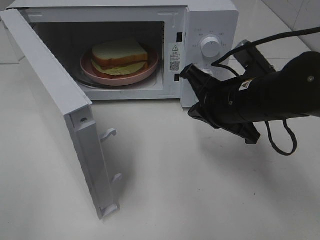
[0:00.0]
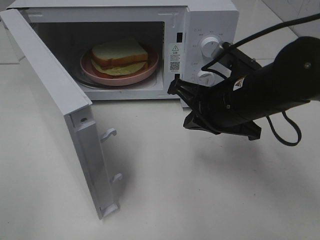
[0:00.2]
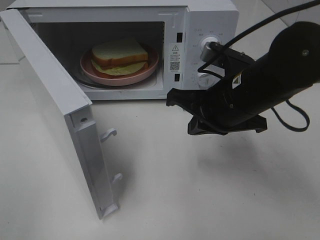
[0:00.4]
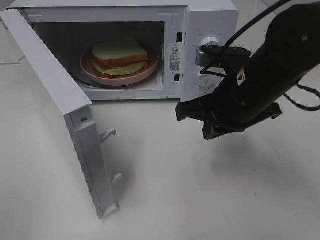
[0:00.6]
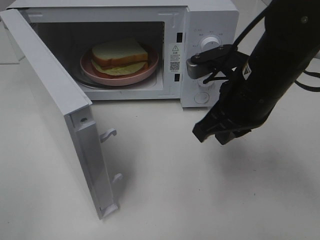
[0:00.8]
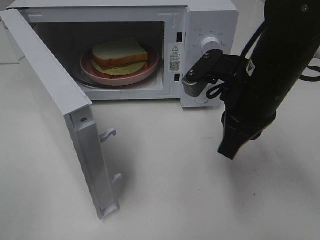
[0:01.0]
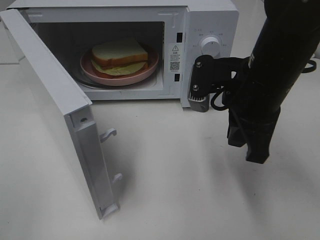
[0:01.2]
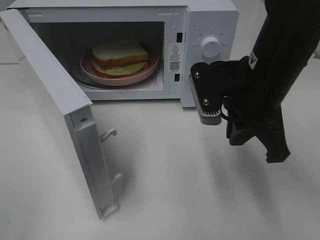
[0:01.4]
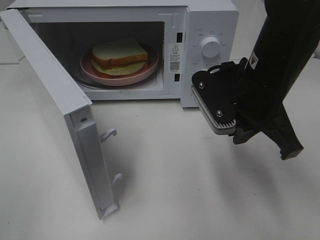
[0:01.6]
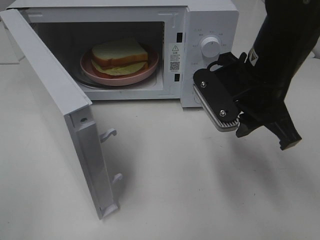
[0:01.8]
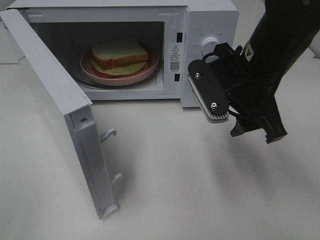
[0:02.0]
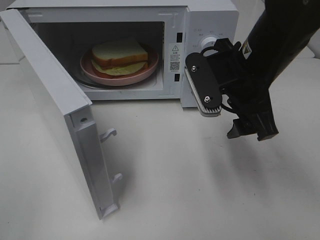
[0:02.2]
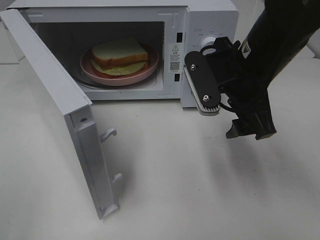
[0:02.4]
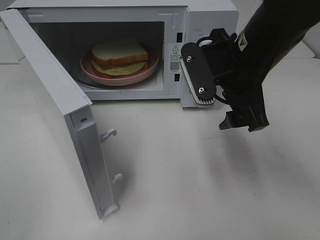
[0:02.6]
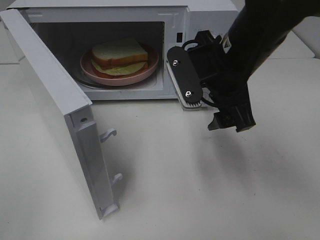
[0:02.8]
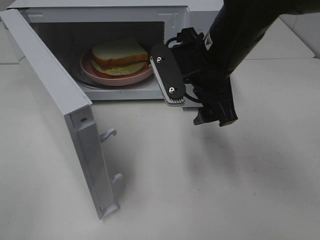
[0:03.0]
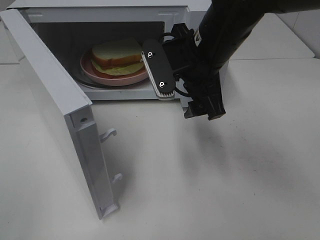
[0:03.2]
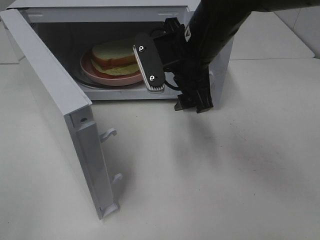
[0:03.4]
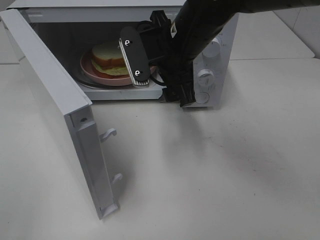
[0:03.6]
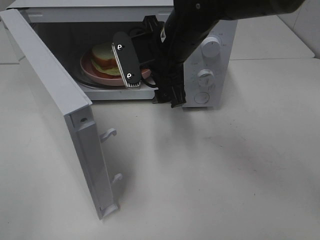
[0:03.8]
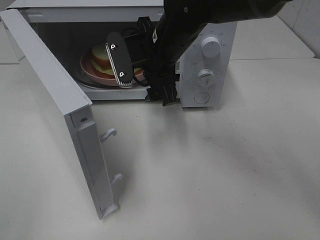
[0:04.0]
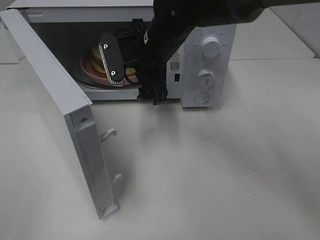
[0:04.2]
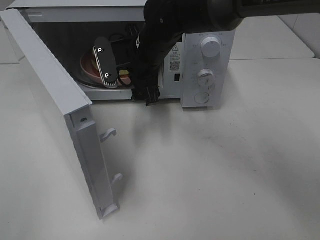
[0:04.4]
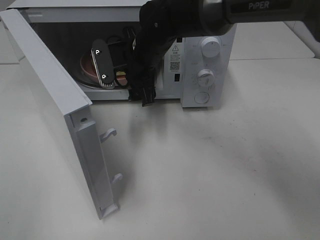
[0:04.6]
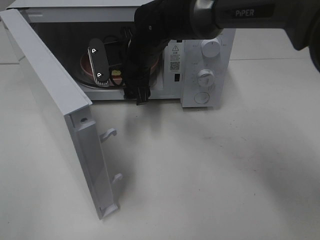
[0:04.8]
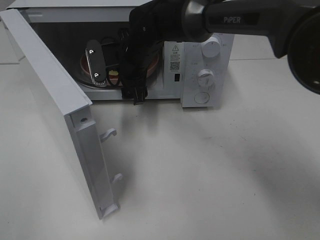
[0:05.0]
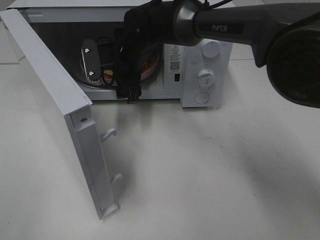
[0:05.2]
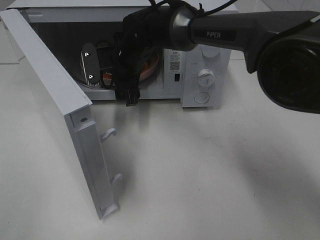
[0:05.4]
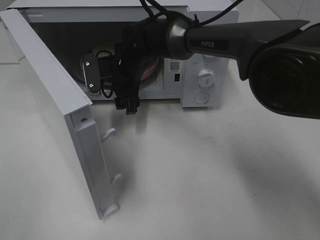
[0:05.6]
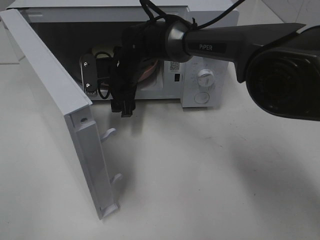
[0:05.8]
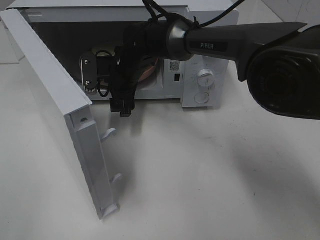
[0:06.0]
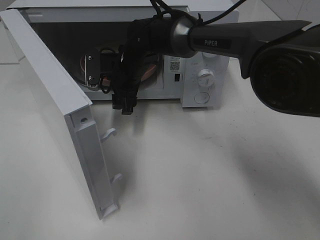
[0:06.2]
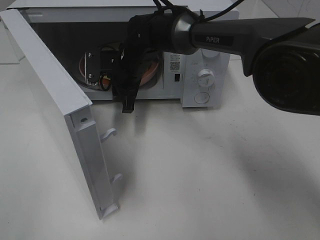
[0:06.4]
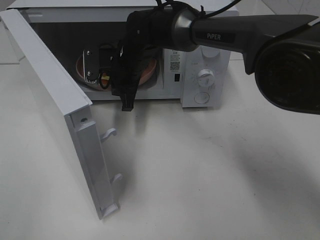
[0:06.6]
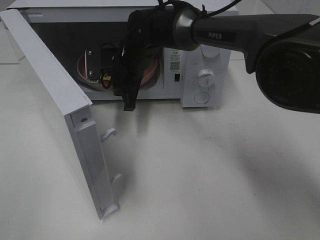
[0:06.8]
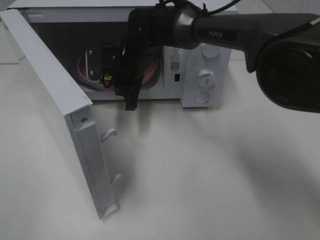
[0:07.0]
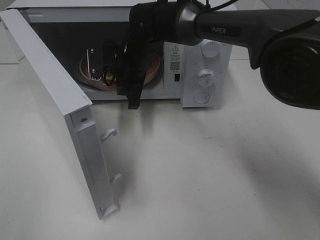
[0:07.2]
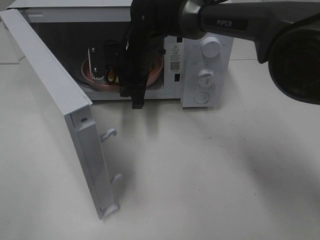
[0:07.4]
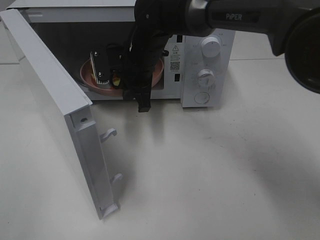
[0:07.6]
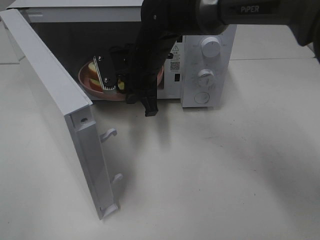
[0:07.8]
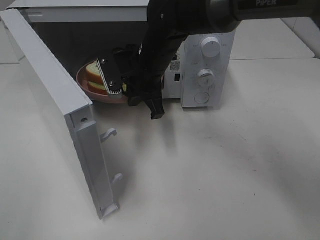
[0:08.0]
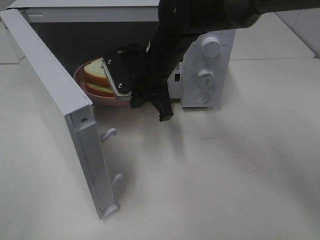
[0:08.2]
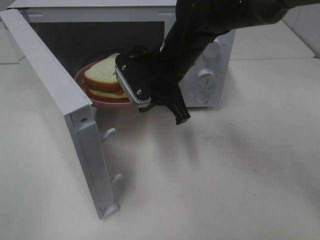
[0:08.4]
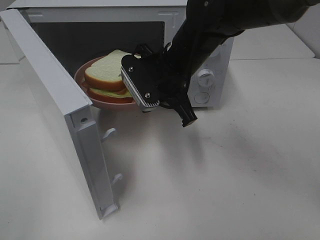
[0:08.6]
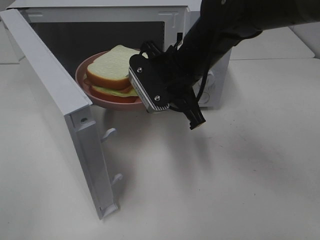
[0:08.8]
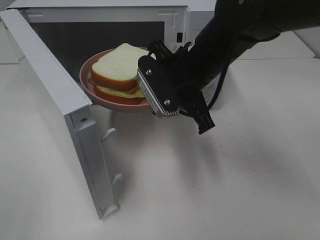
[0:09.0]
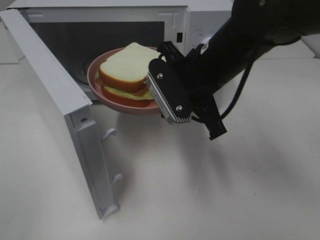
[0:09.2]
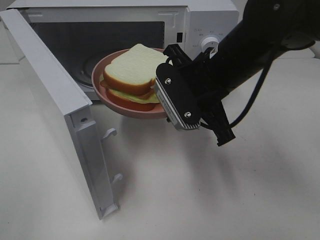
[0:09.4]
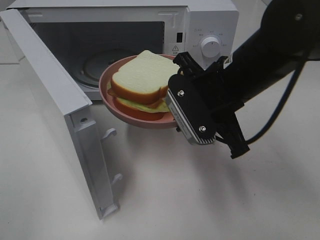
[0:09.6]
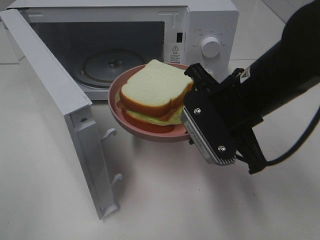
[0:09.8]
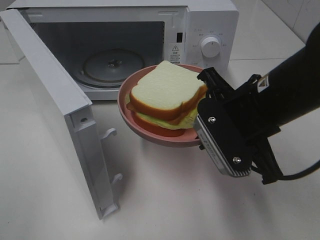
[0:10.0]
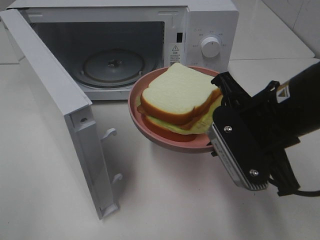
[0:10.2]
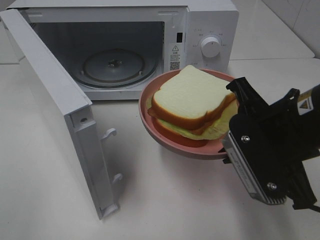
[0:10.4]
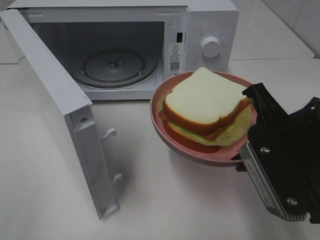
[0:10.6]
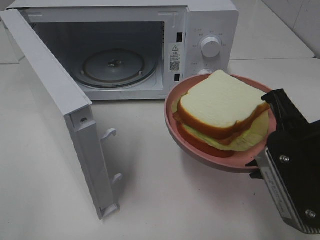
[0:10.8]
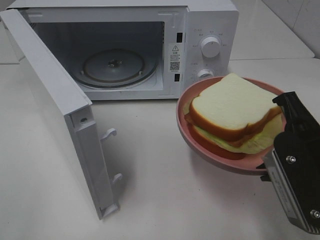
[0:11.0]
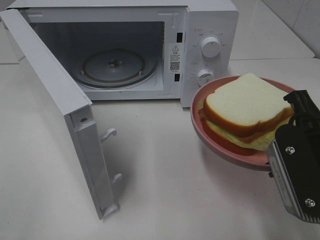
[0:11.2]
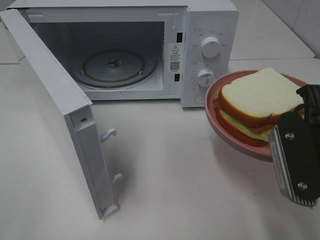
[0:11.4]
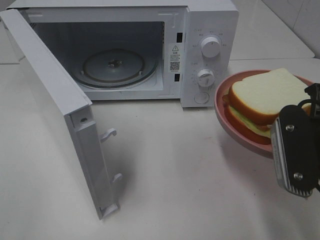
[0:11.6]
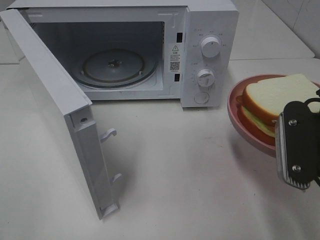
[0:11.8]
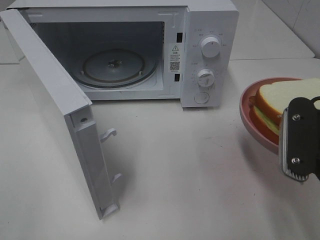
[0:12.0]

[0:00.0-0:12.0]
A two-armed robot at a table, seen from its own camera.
Task of the whole recording: Heat Sandwich.
Step, 0:00.0 to 0:06.6: Right hand: grab the plate with the sandwich.
0:01.6 to 0:03.0: The right gripper is displaced to the left by some 5 cm, and opens.
0:03.0 to 0:04.4: The right gripper is displaced forward and to the left by approximately 15 cm.
0:04.4 to 0:06.0: The right gripper heads downward, covering some 5 cm.
0:06.0 to 0:07.6: The right gripper shifts by approximately 5 cm, and closes up.
0:07.6 to 0:09.0: The right gripper heads backward, to the right and upward, covering some 15 cm.
0:09.0 to 0:10.4: The right gripper is displaced backward and to the right by about 15 cm.
0:10.4 to 0:12.0: The right gripper is displaced to the right by roughly 5 cm.

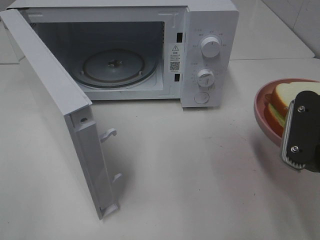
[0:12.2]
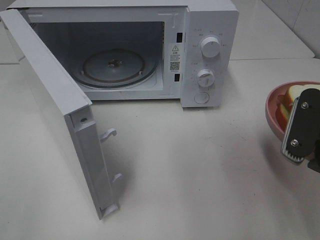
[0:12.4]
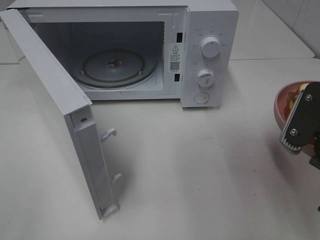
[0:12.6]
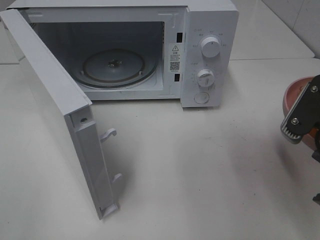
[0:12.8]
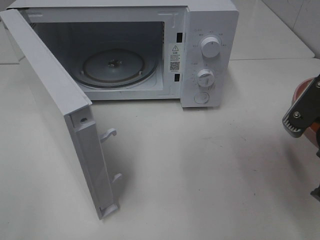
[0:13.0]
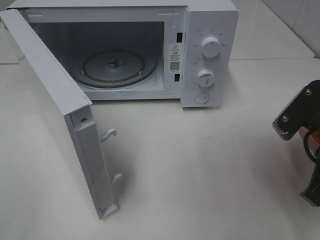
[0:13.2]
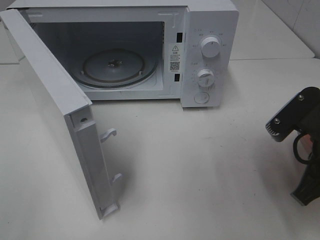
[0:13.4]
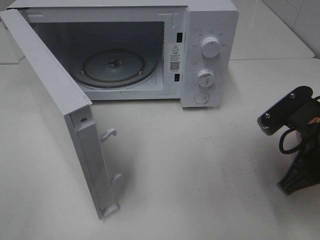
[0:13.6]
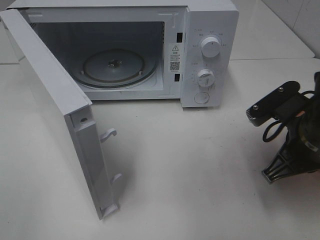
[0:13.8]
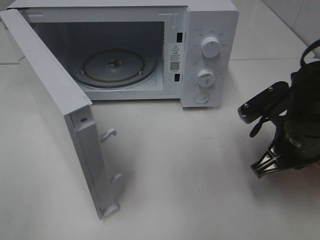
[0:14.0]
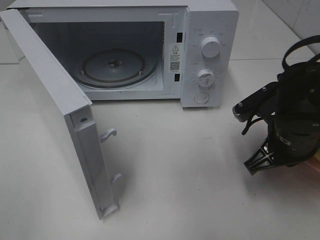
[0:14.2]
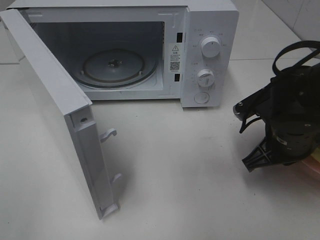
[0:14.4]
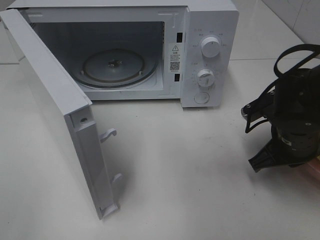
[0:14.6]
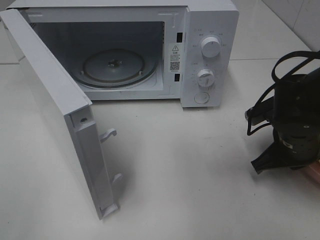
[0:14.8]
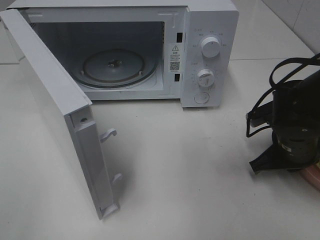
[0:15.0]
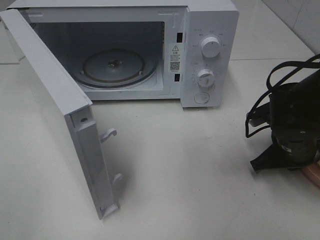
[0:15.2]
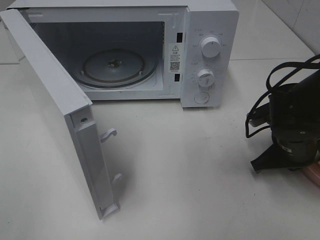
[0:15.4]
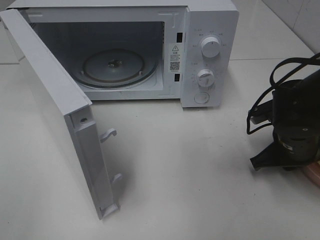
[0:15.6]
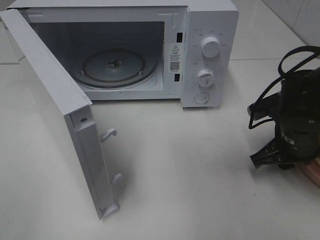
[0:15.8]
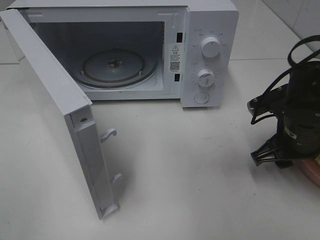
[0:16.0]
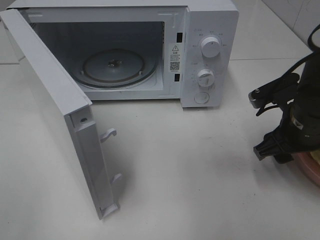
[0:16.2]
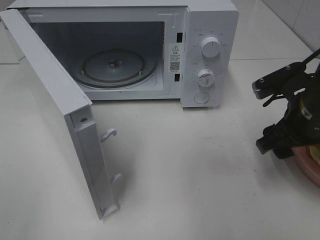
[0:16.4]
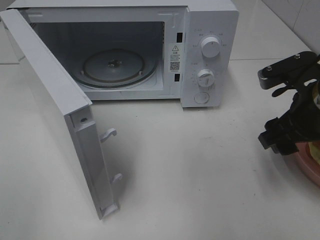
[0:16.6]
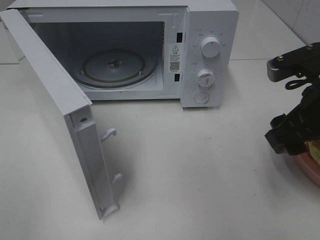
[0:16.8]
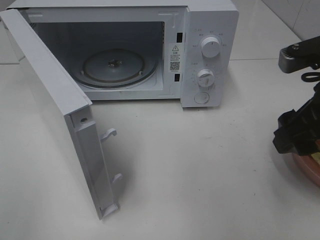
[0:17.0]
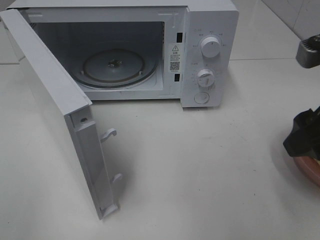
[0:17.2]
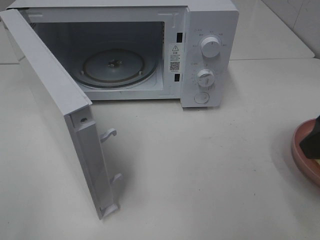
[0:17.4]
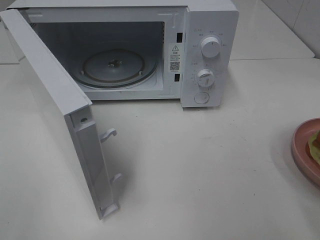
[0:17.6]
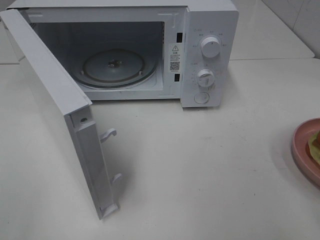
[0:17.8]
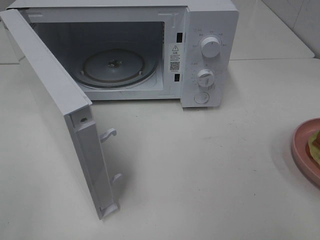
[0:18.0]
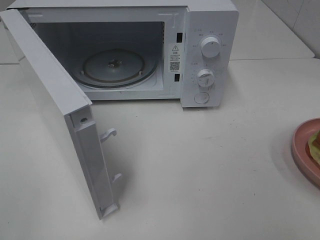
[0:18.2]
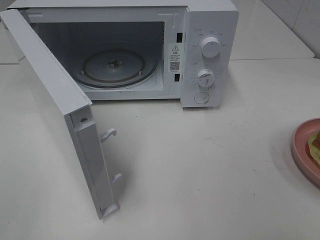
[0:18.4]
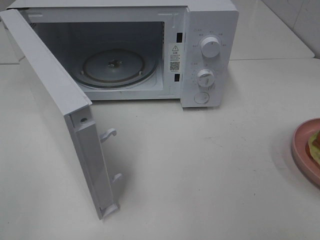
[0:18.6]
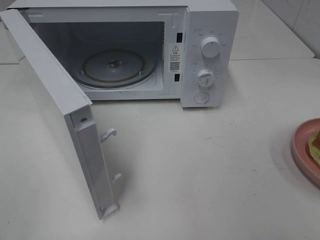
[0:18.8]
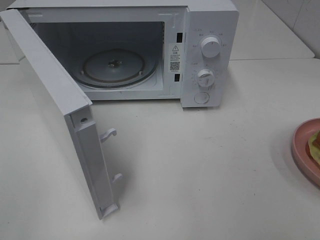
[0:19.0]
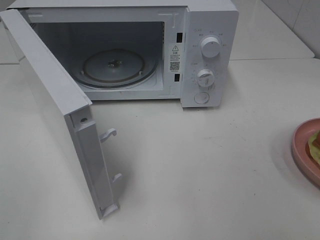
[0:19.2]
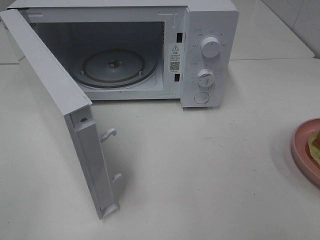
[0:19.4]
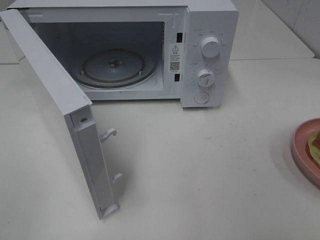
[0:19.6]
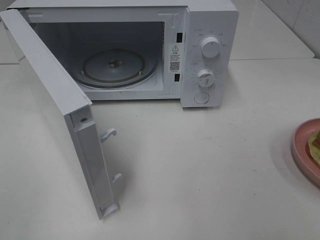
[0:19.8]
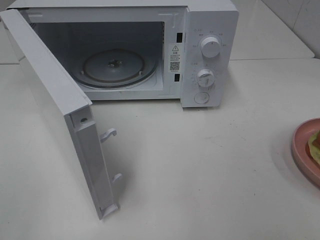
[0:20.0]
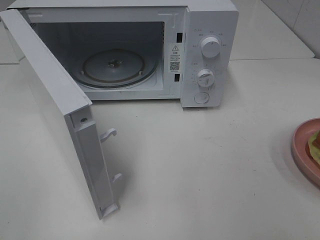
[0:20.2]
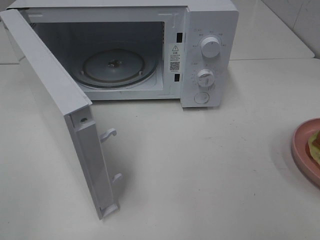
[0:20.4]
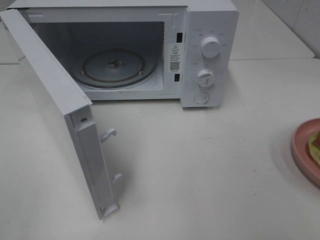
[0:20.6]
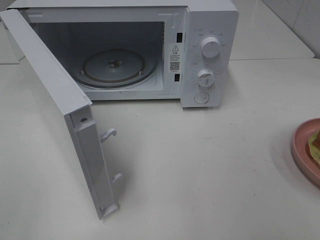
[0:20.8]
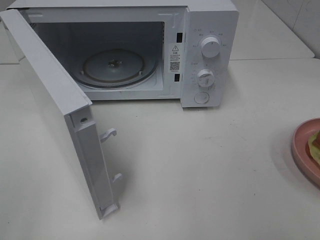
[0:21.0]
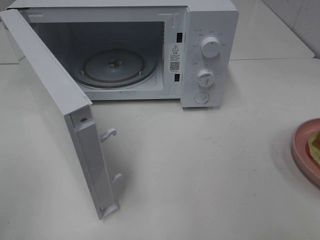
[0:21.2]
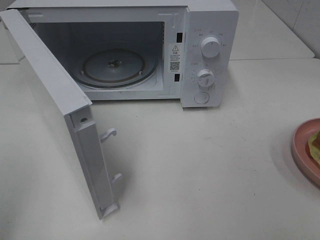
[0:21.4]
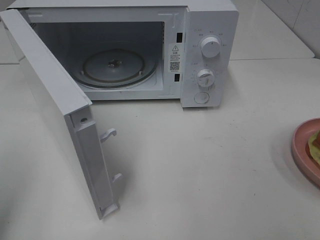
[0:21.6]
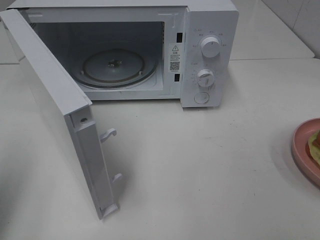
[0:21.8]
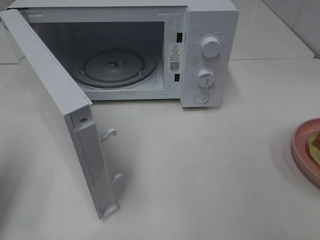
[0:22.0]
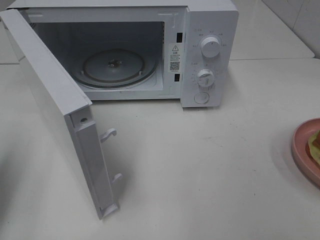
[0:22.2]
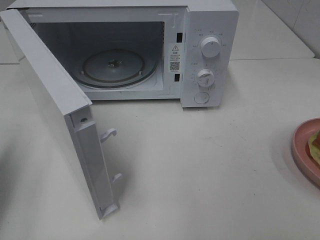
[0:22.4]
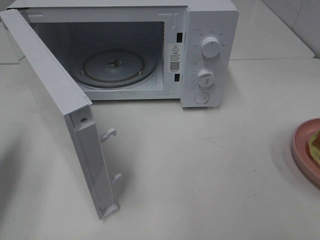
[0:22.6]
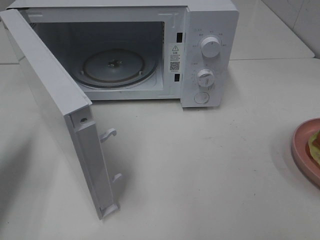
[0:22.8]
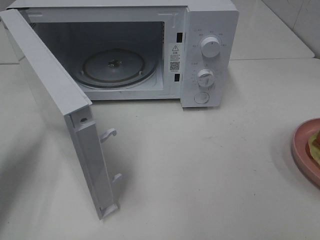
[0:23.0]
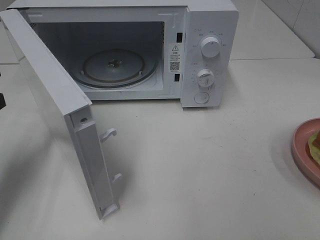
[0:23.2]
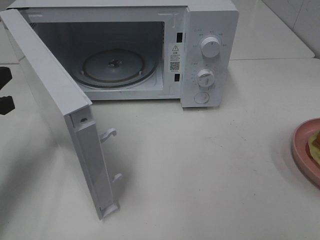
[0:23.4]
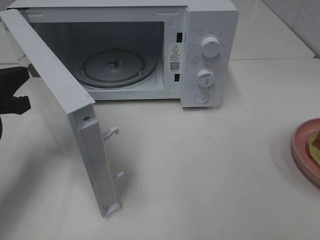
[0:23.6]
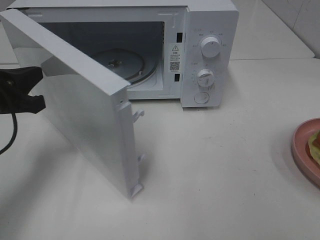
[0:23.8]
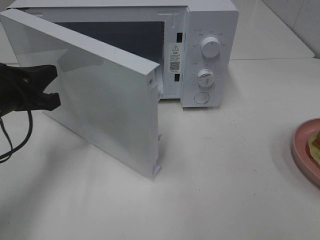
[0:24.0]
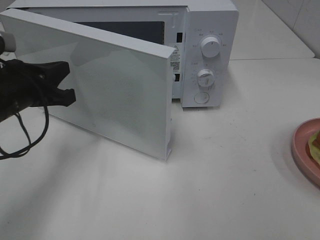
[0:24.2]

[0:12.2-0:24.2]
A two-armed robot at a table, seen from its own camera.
Task of the whole recording: Heat Sandwich.
Step, 0:12.2 to 0:17.0: Right hand: place the plate on the table.
0:12.2 to 0:13.8: The right gripper shifts roughly 10 cm forward and downward.
0:13.8 to 0:15.2: The right gripper shifts about 10 cm downward and forward.
0:15.2 to 0:16.6: The right gripper is displaced upward by some 10 cm, and opens up.
0:16.6 to 0:18.2: The right gripper heads backward and upward, covering about 20 cm.
0:21.2 to 0:22.6: The left gripper moves forward and downward, some 20 cm, and closes up.
0:22.6 to 0:24.2: The left gripper travels to the right and forward by about 15 cm.
